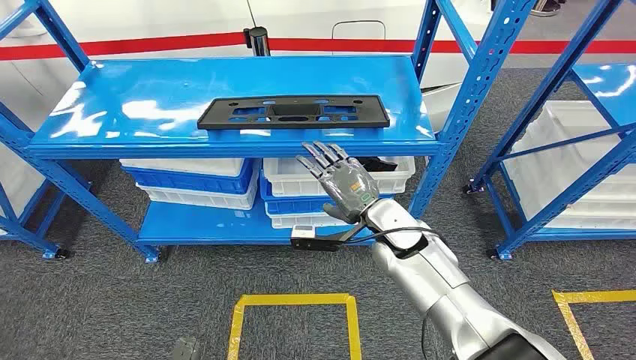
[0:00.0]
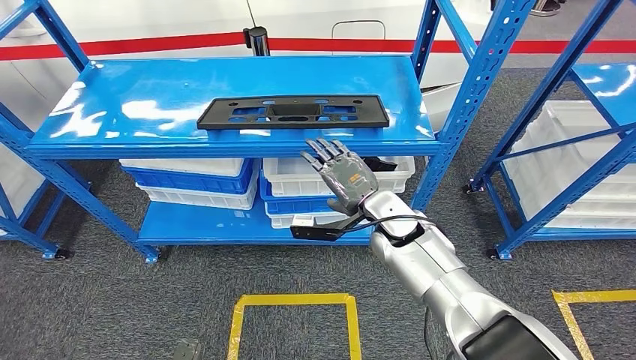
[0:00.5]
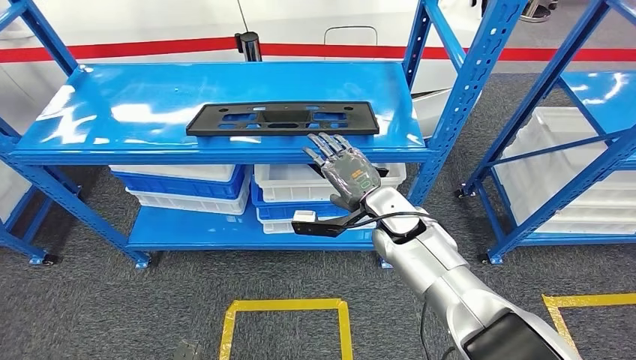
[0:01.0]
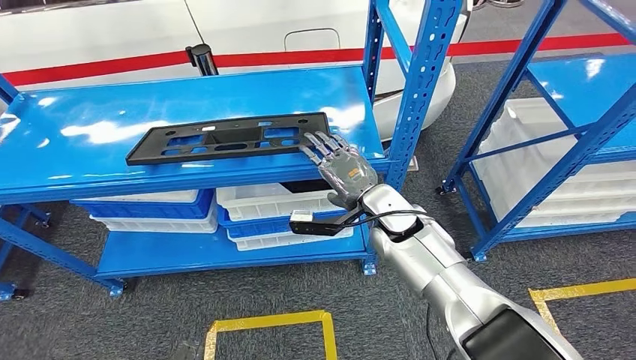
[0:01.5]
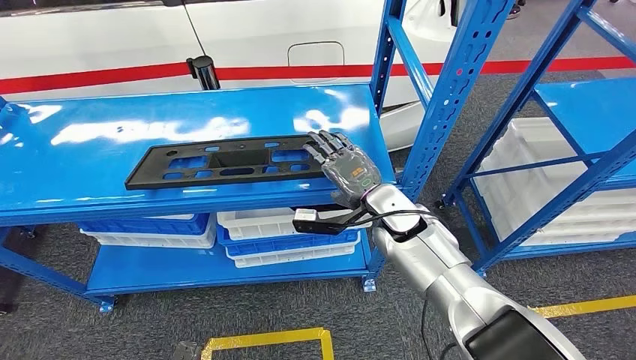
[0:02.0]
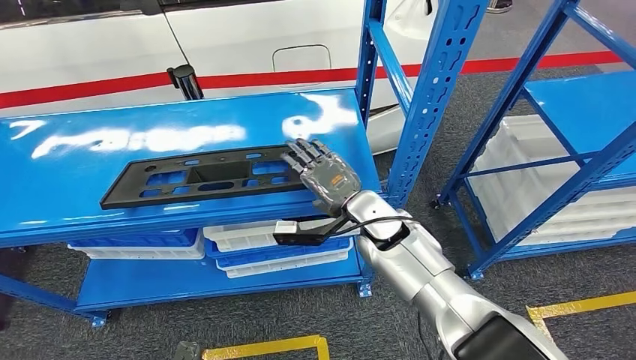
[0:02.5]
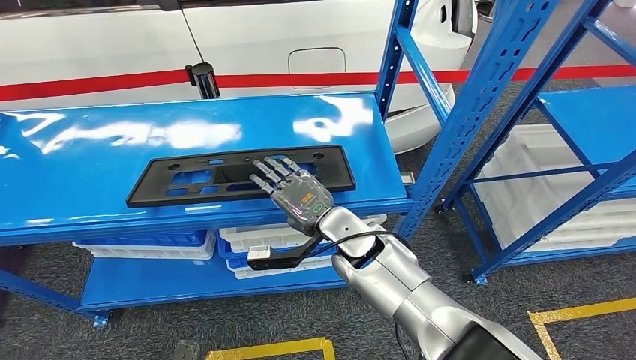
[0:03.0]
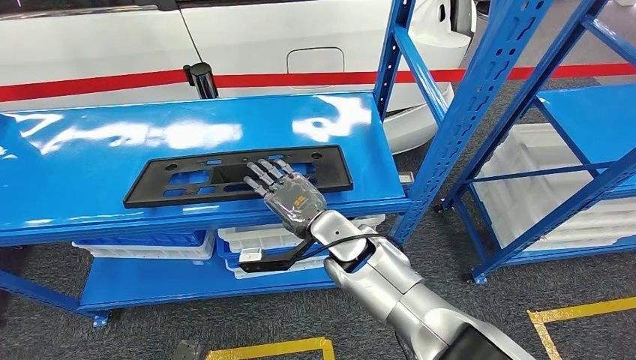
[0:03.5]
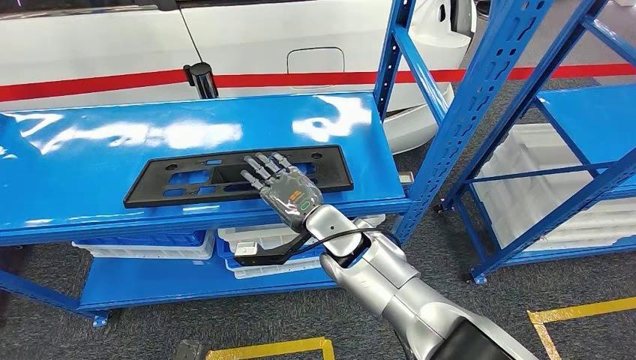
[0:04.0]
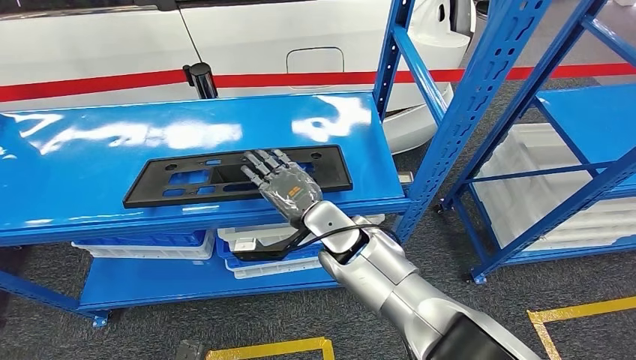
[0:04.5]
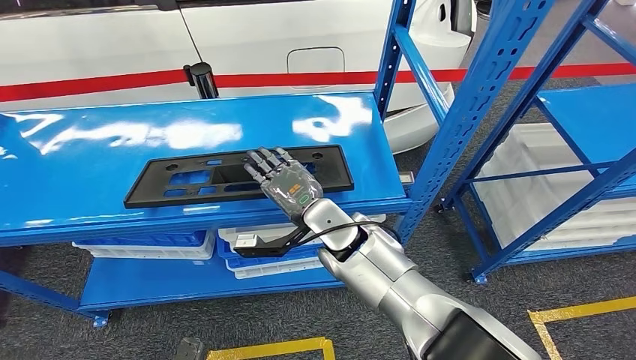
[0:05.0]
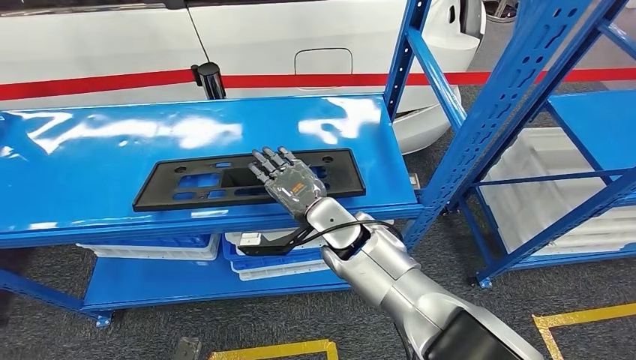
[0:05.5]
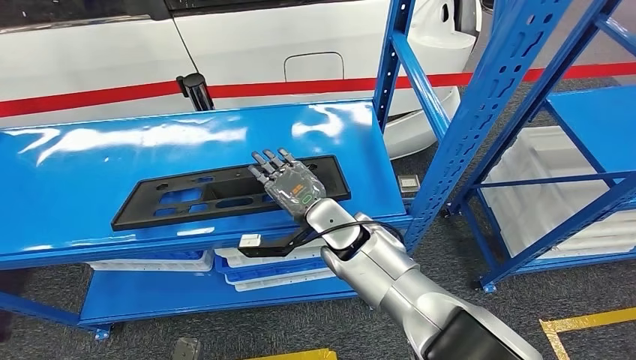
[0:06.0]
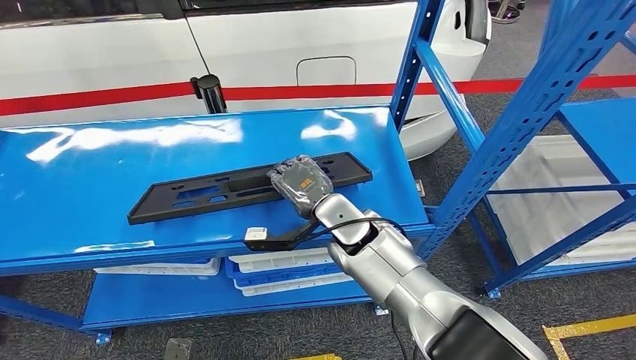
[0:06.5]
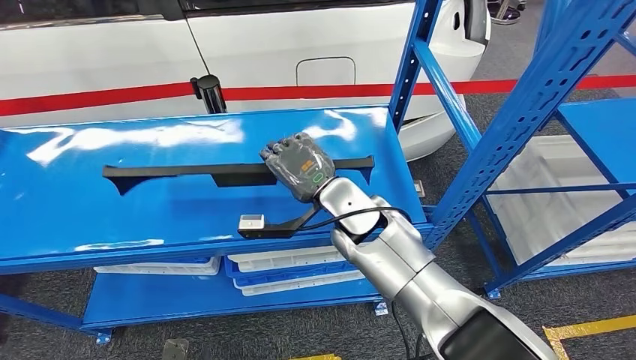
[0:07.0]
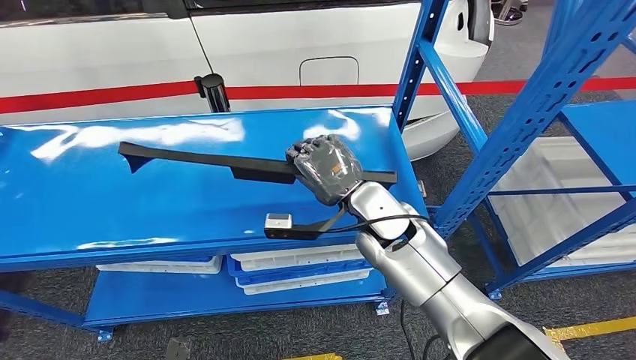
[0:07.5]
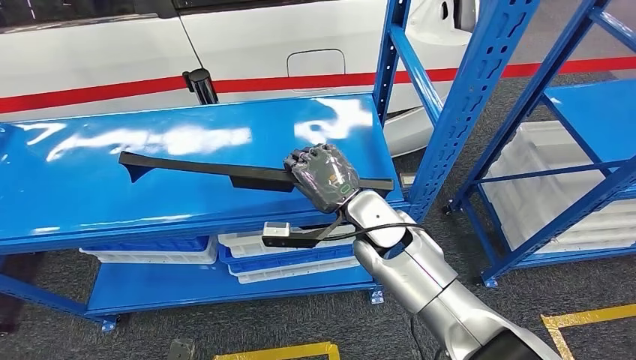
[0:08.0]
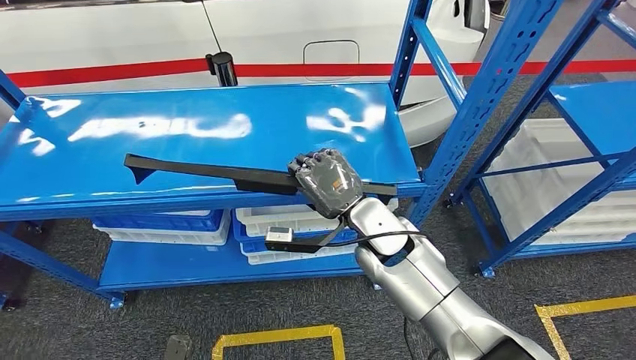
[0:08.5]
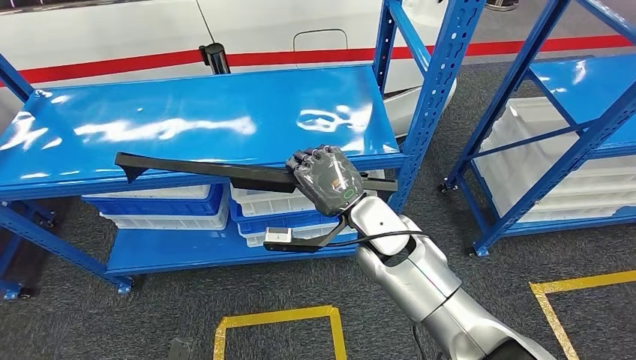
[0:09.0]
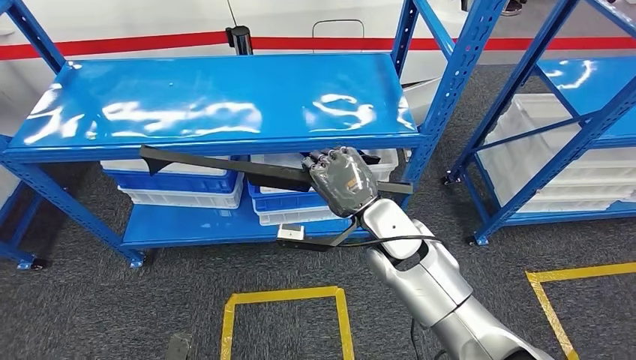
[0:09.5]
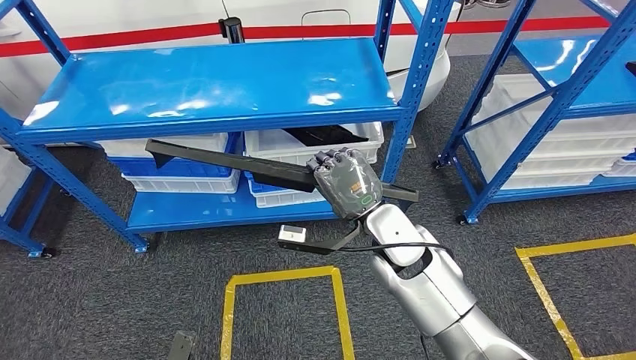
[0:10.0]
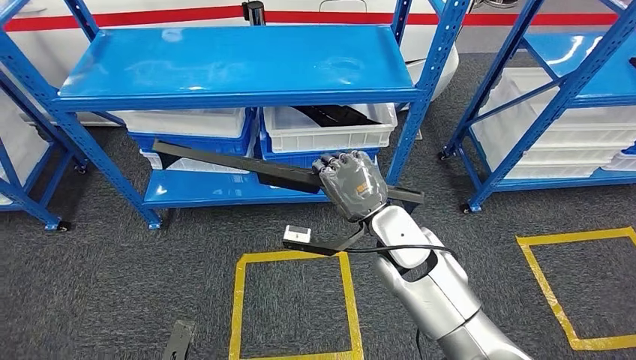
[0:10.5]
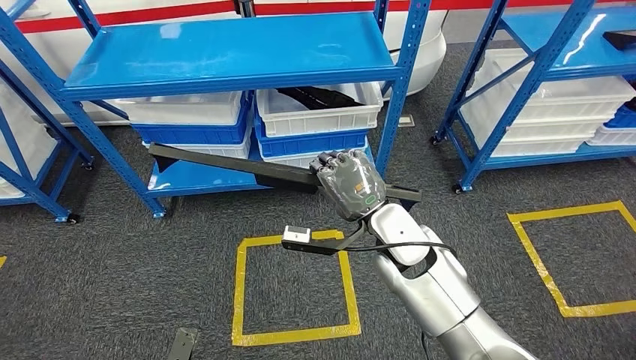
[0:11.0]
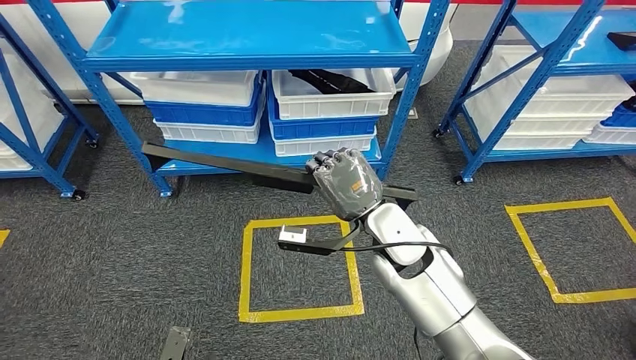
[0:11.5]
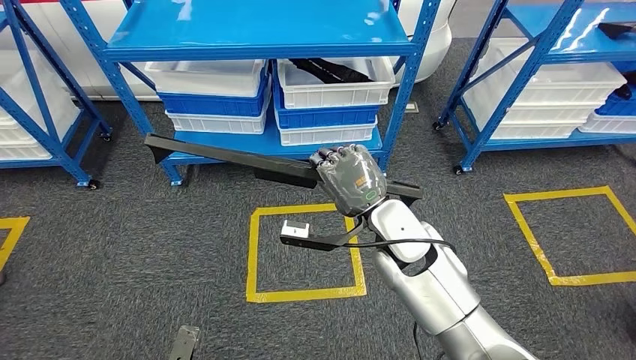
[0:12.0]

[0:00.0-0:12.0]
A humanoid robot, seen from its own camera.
Step, 0:00.0 to 0:09.0: Pick up the large material from the shelf.

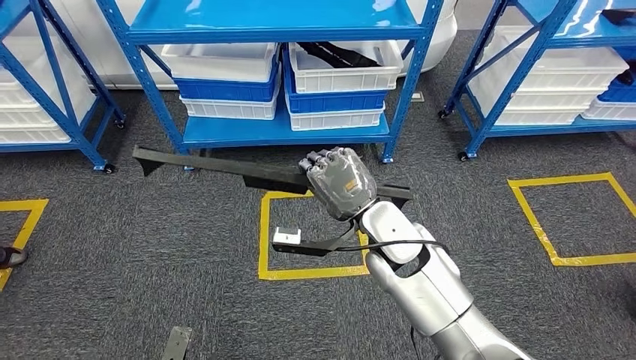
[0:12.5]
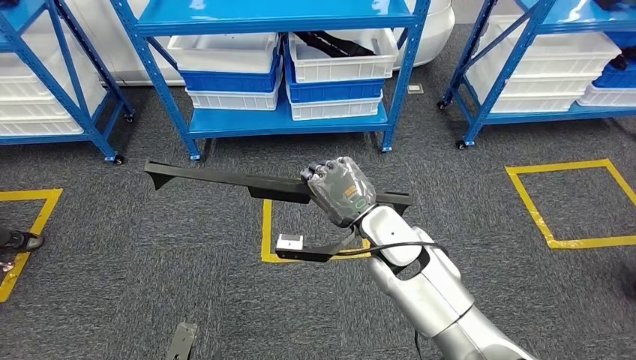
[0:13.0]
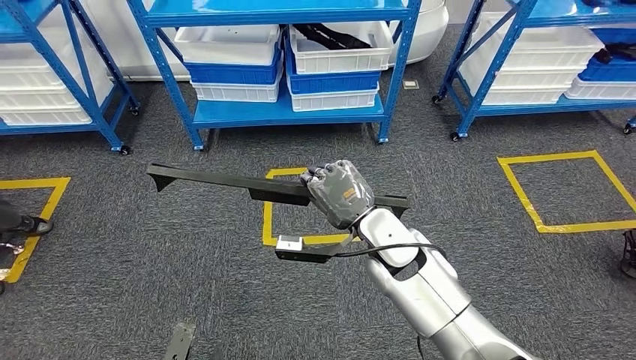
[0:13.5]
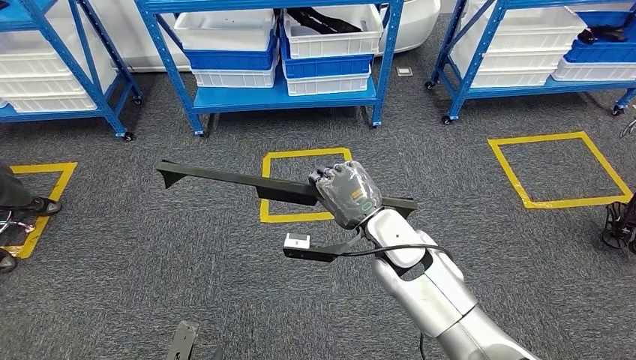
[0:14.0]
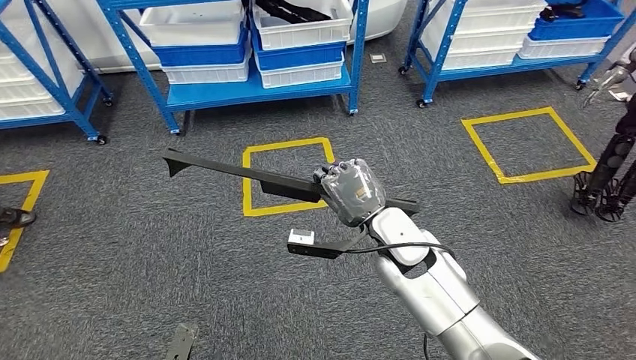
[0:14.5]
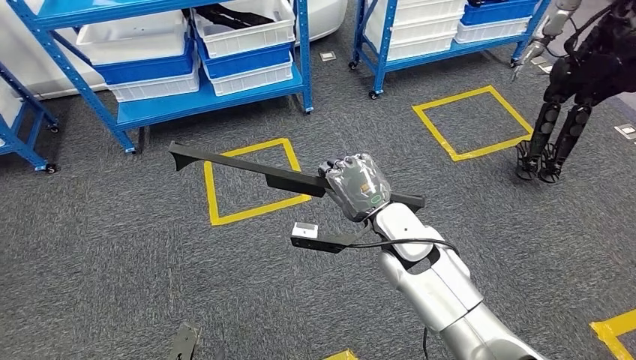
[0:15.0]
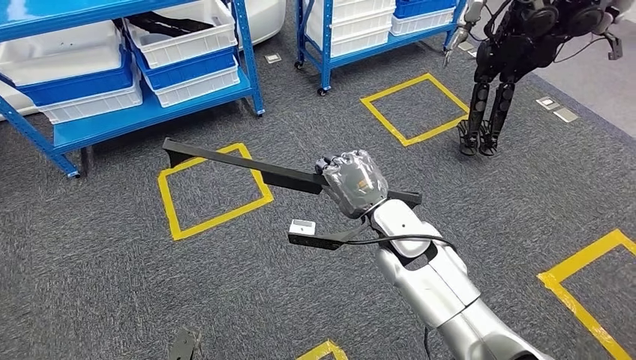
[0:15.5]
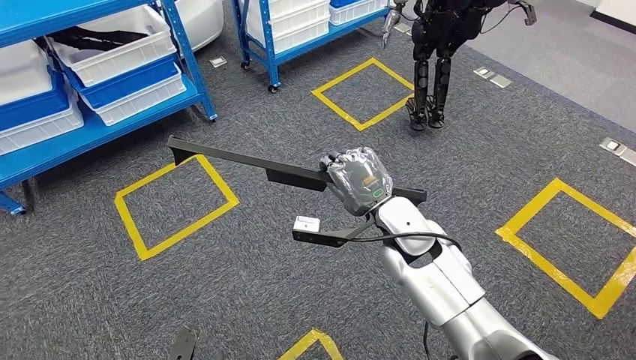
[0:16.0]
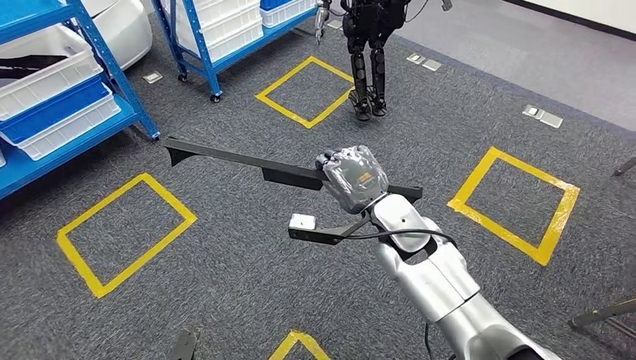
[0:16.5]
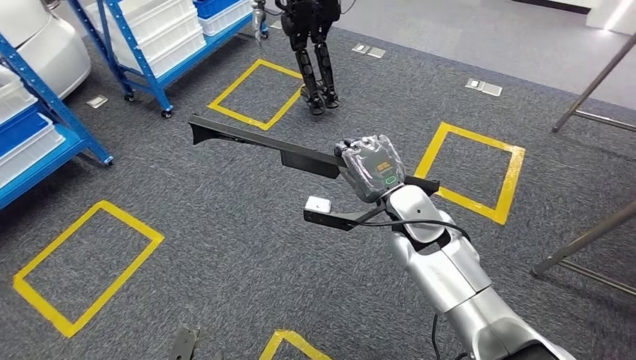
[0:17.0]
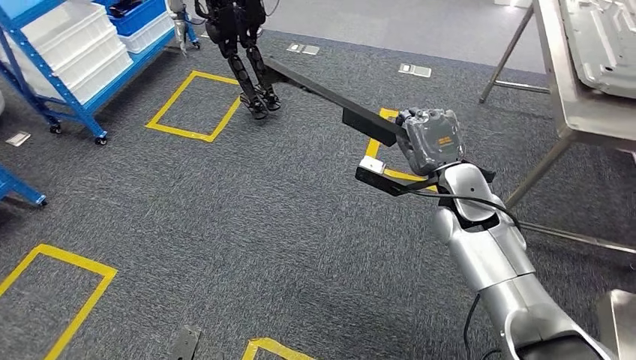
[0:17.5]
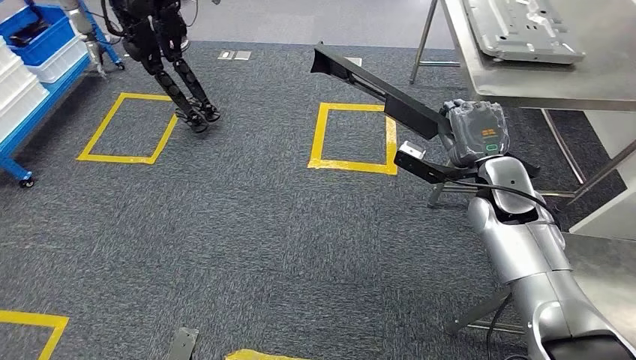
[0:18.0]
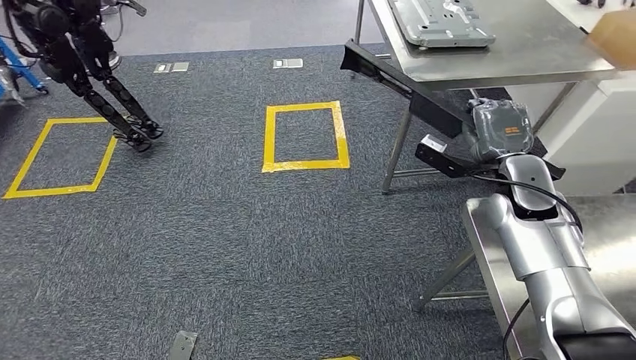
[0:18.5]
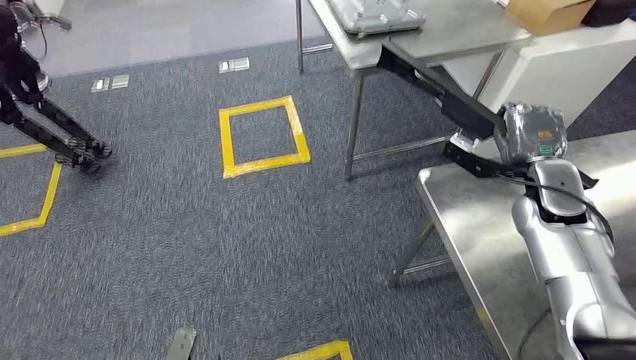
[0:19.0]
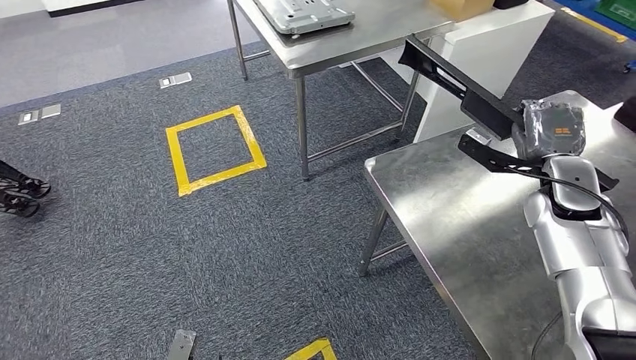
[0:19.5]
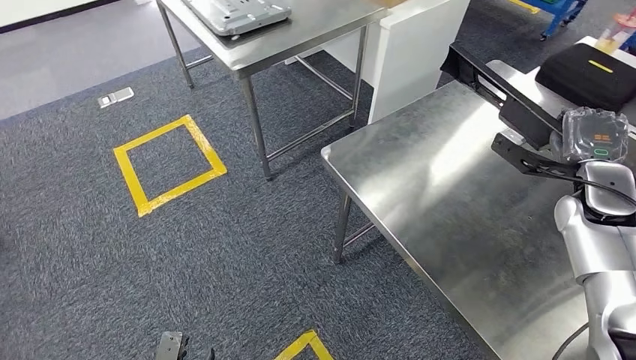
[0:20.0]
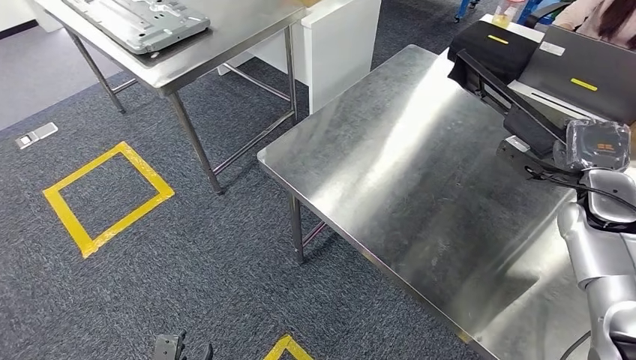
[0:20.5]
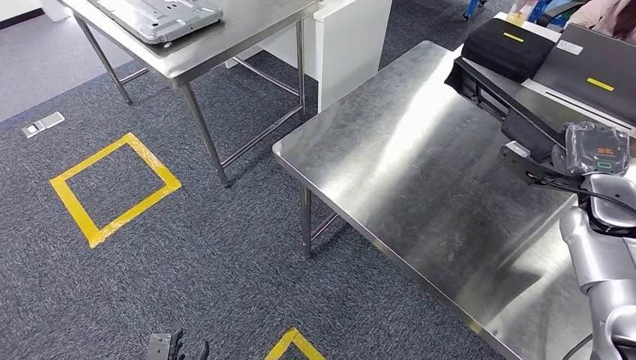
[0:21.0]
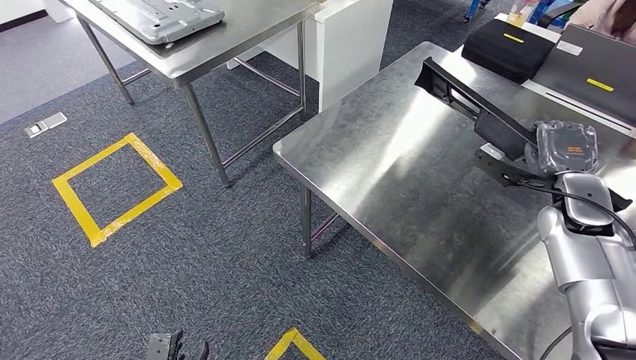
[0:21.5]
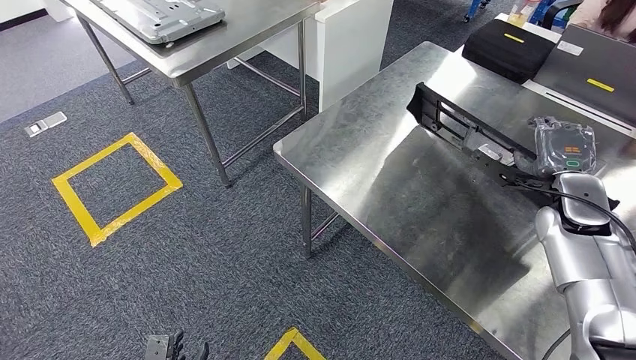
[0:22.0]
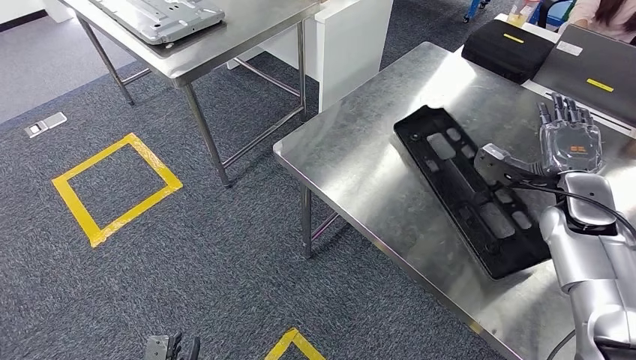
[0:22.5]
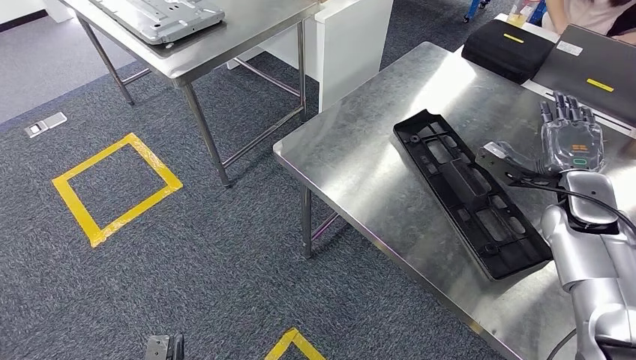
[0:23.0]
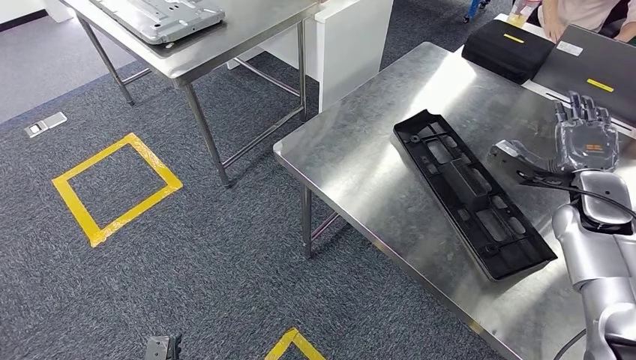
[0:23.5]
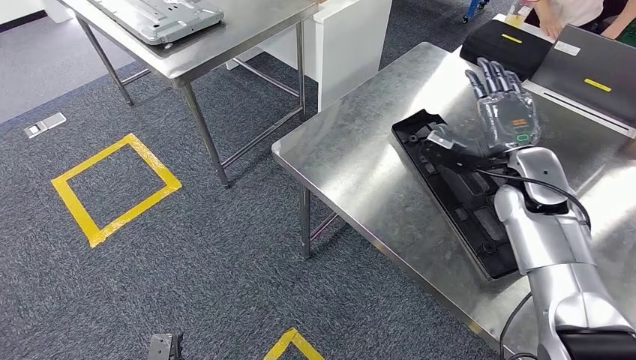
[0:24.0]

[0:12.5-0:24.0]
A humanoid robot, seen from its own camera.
Step, 0:12.5 to 0:20.5: Move the large material to the front of the workbench.
0:22.0 to 0:24.0: The right hand goes some 10 cm to the left.
